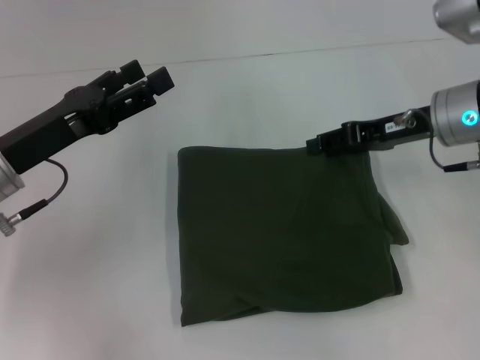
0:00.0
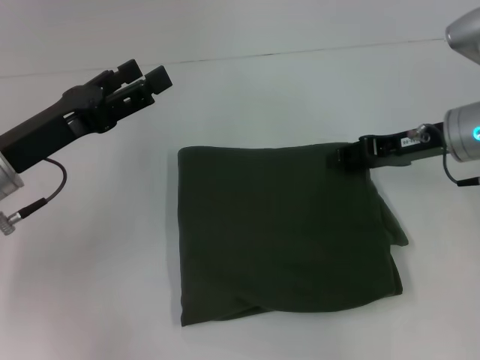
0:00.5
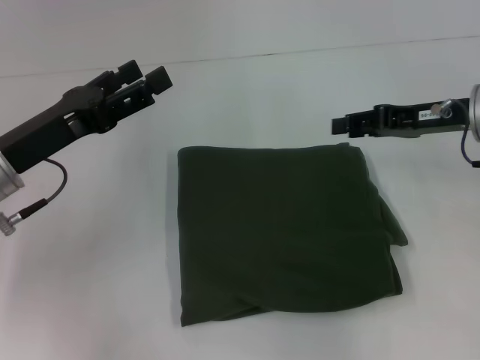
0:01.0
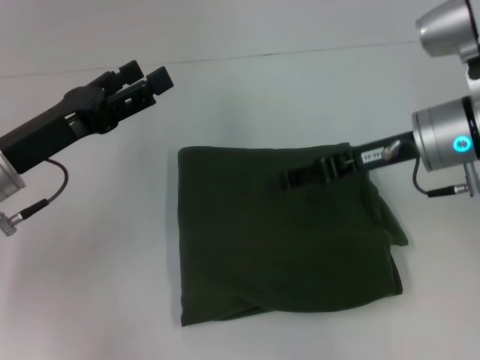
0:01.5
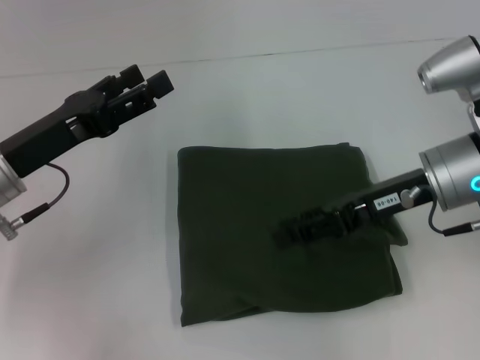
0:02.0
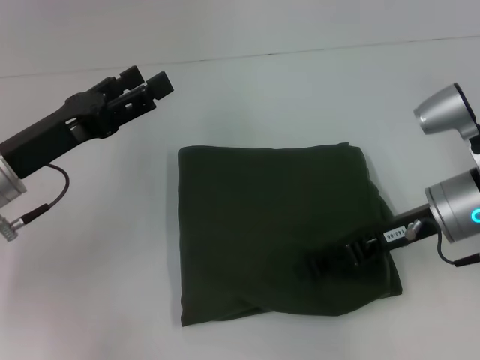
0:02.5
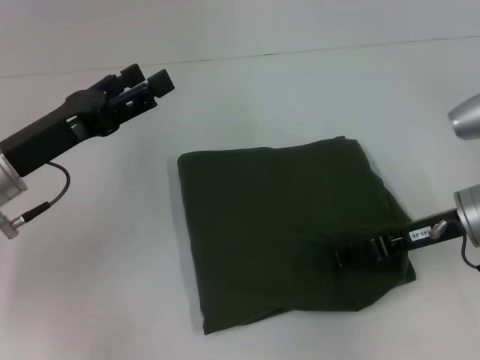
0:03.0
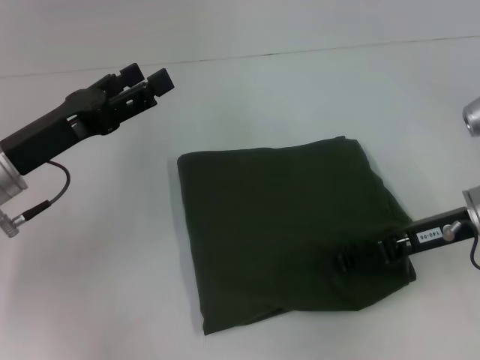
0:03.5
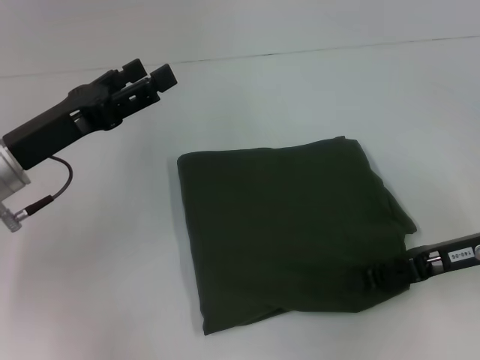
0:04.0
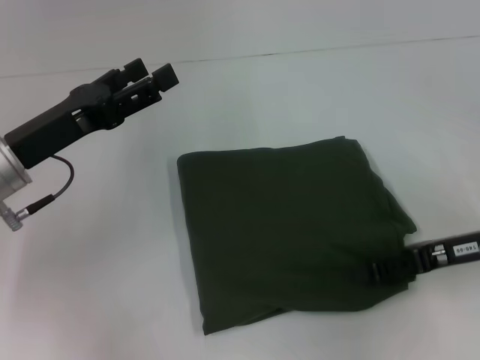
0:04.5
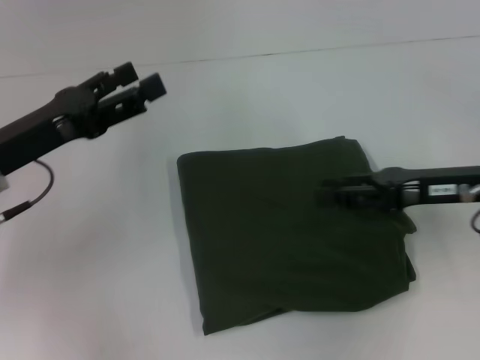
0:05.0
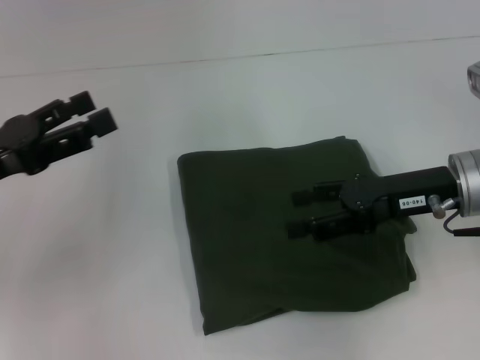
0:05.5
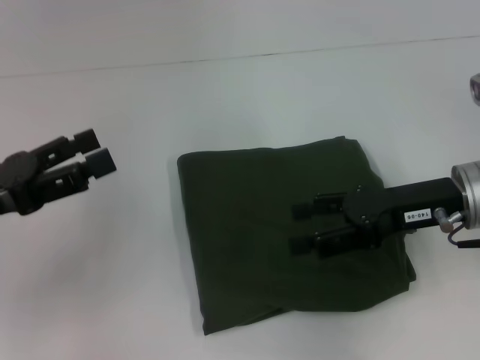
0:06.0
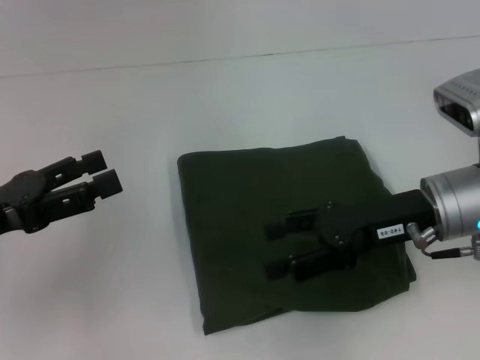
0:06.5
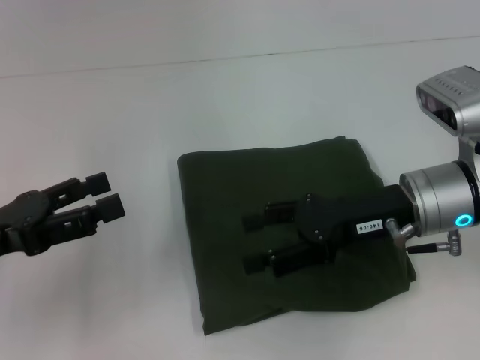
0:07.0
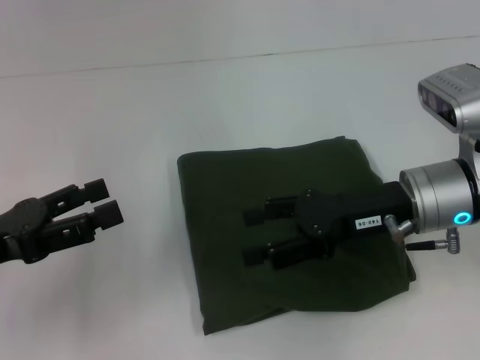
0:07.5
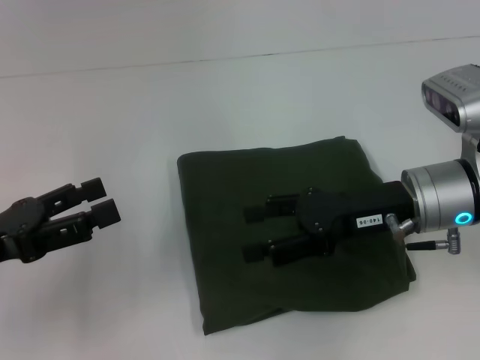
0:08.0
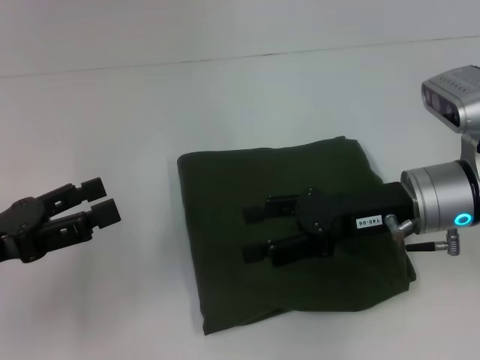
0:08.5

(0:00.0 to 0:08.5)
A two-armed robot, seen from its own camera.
0:00.0 - 0:02.0: The right gripper moves roughly 5 cm.
0:02.0 - 0:04.0: The right gripper is displaced to the right and backward by about 10 cm.
0:04.0 - 0:06.5: The right gripper moves to the left, some 5 cm, and opens; the left gripper travels to the left and backward by approximately 10 cm.
0:06.5 - 0:08.5: There are only small adjustments of the grippers.

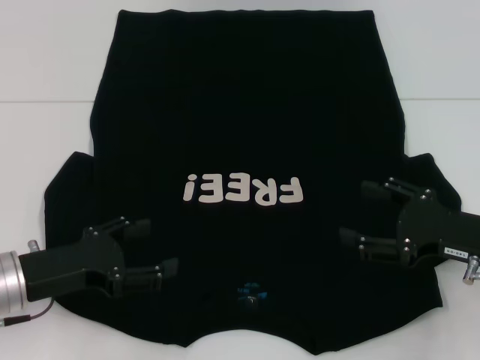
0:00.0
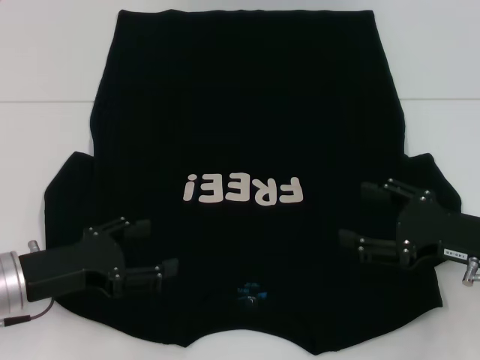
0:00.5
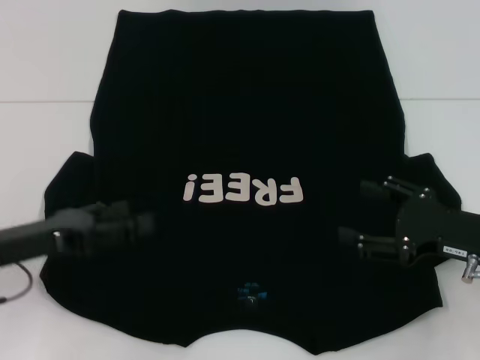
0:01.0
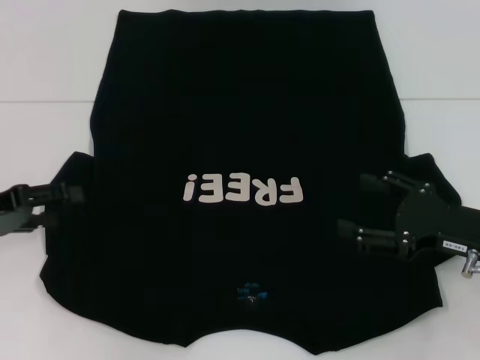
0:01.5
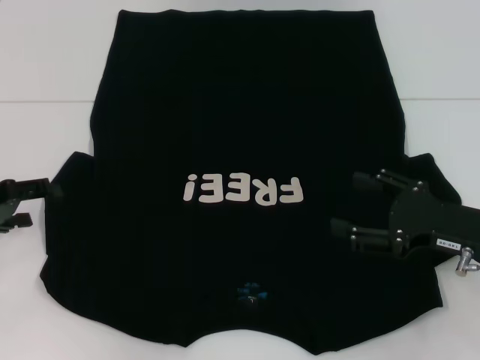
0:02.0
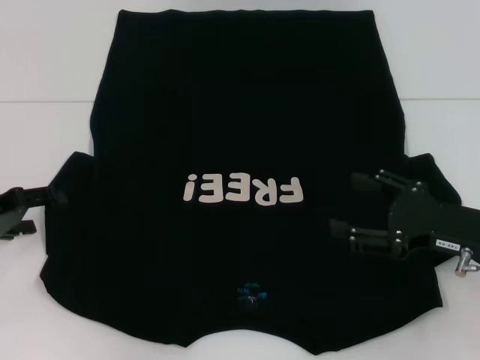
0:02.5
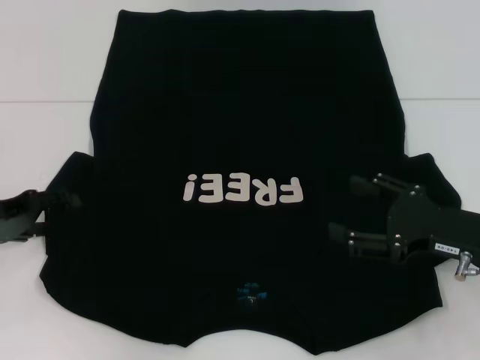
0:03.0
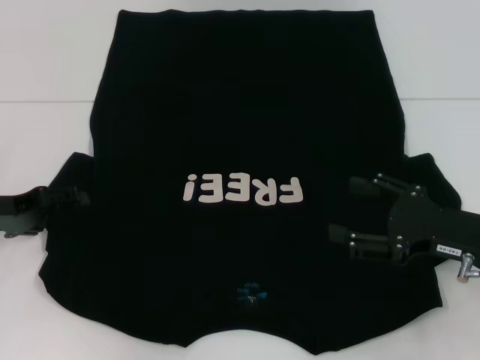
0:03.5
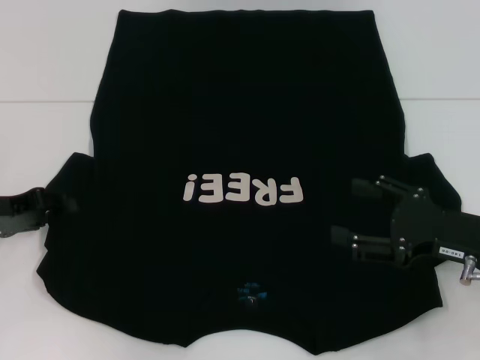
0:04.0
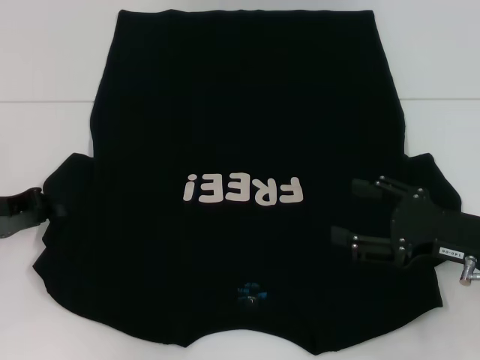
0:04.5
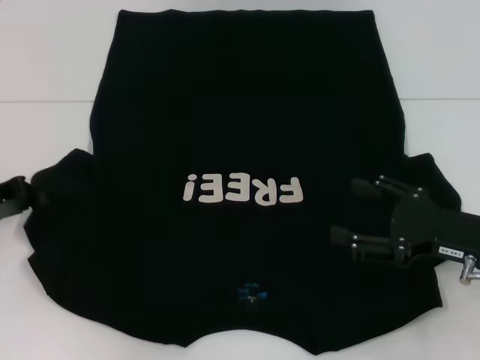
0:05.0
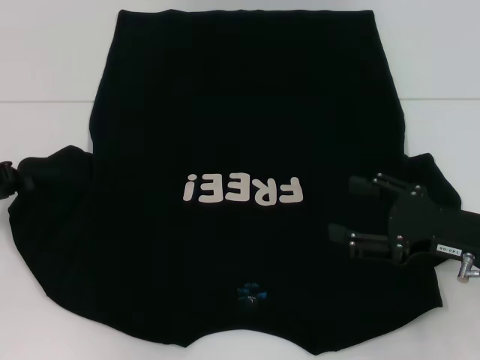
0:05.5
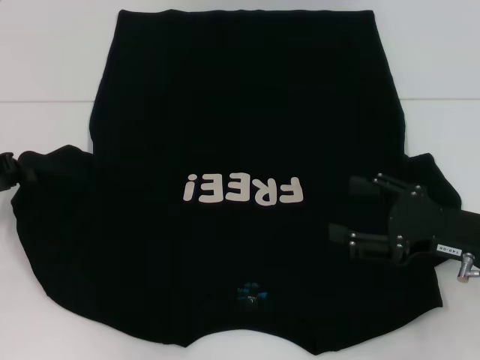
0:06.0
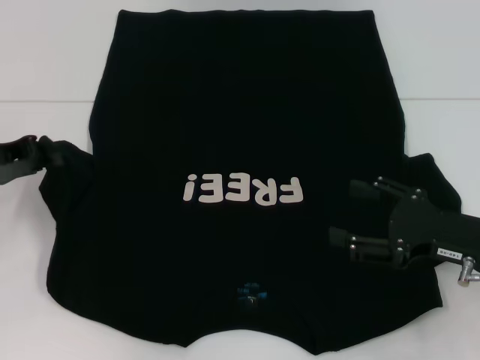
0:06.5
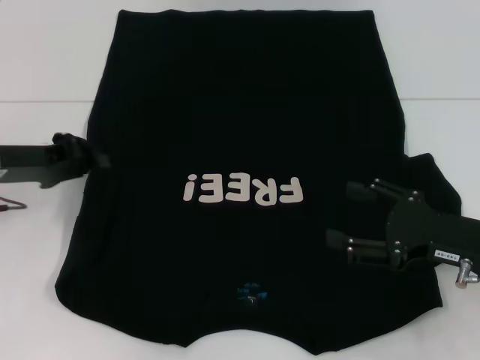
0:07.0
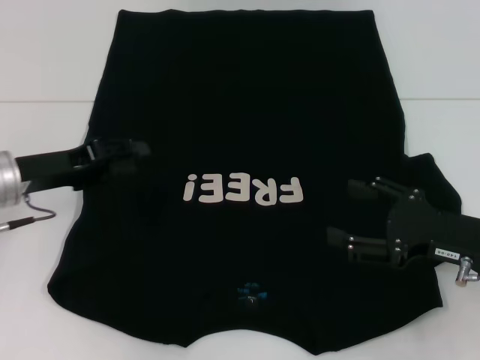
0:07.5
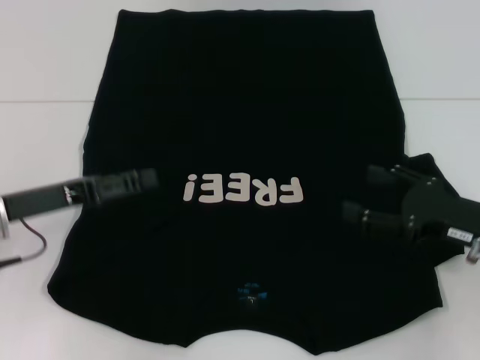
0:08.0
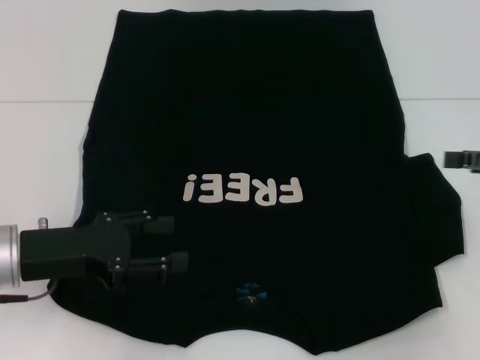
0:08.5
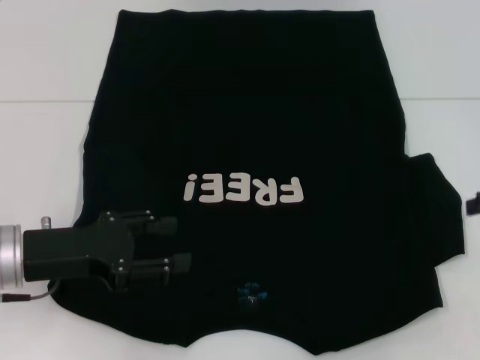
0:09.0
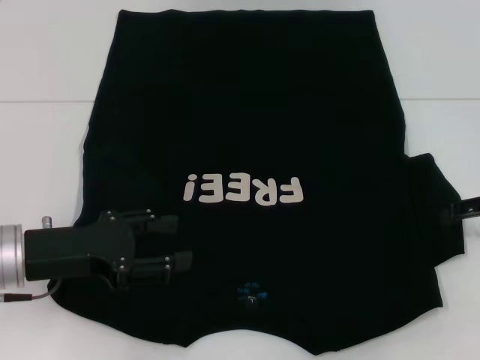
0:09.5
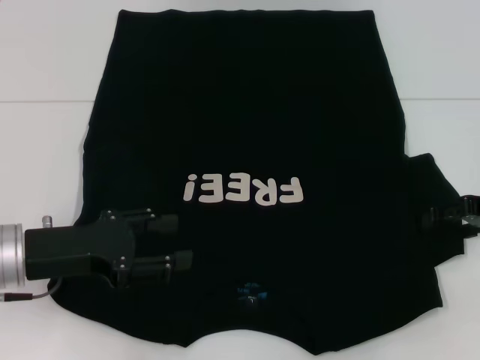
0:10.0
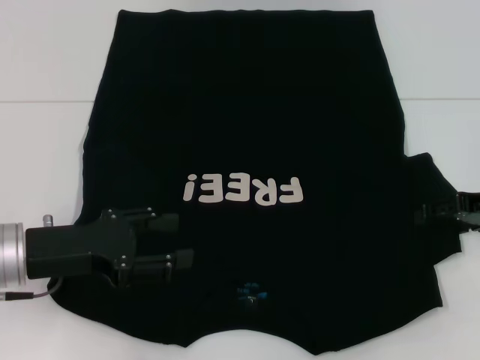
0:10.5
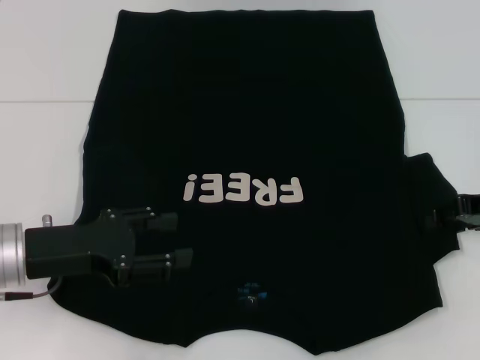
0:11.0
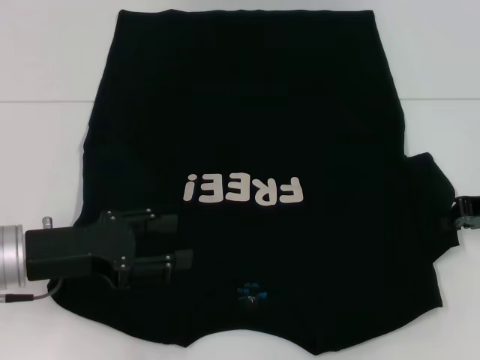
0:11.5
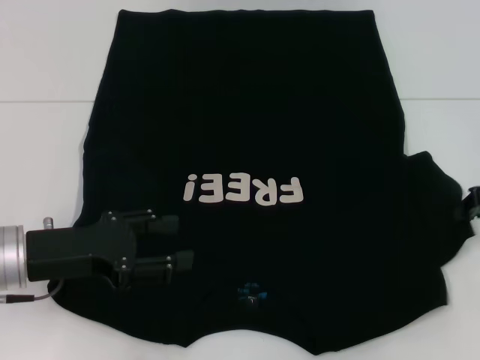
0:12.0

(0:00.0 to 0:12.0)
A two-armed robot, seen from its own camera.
Step, 0:00.0 - 0:08.5: Fold the bottom left sleeve with your left hand.
0:00.0 - 0:02.0: The left gripper heads to the left and forward, covering roughly 10 cm.
0:02.0 - 0:04.0: There are only small adjustments of the grippers.
0:04.0 - 0:06.0: The left gripper closes up.
0:06.0 - 0:08.0: The left gripper goes about 10 cm to the right, and opens its fingers.
0:08.0 - 0:10.0: The right gripper shifts approximately 5 cm forward.
0:10.0 - 0:12.0: The right gripper closes.

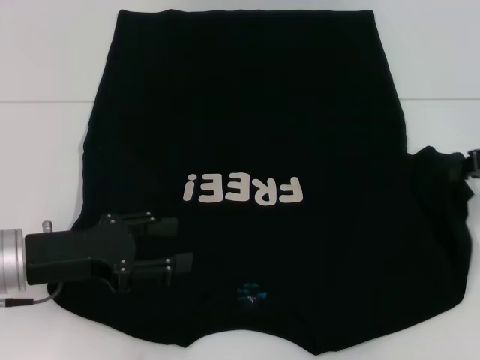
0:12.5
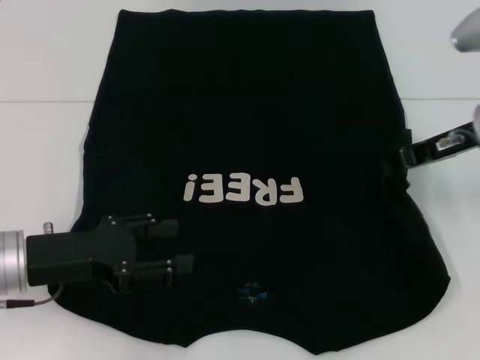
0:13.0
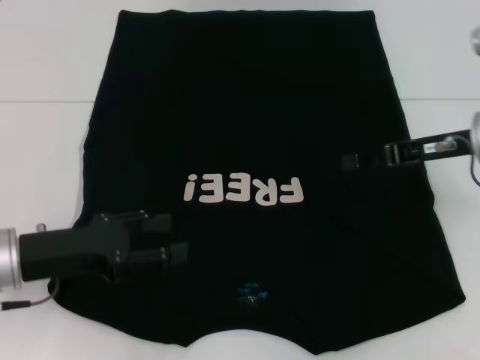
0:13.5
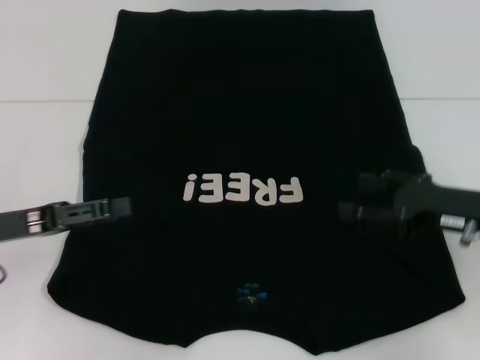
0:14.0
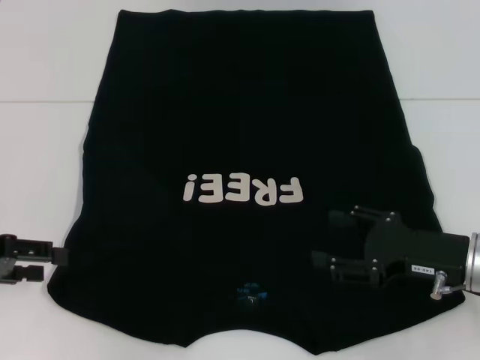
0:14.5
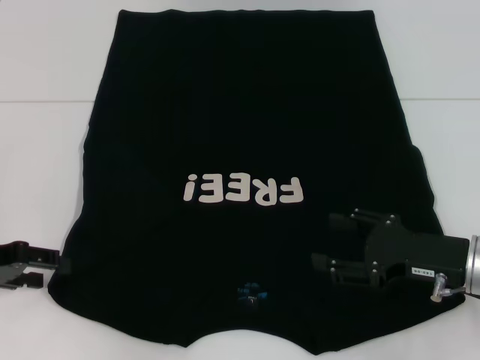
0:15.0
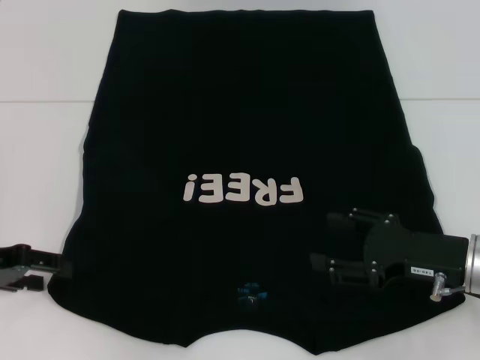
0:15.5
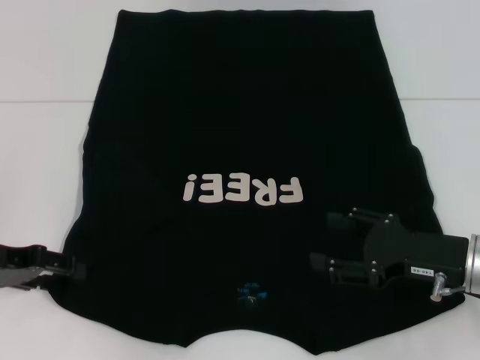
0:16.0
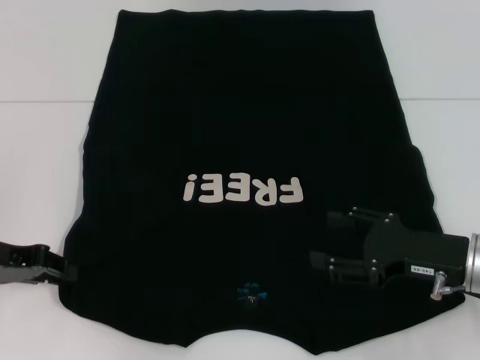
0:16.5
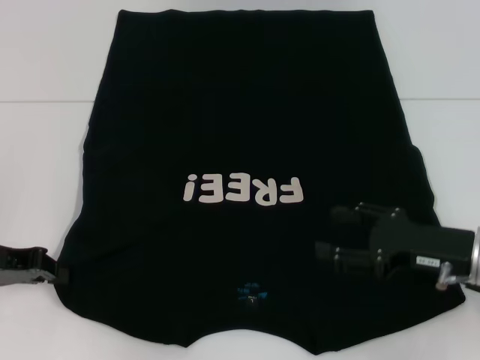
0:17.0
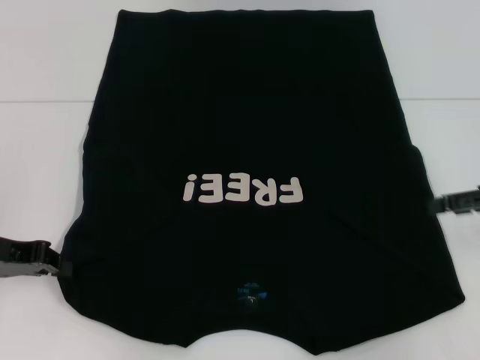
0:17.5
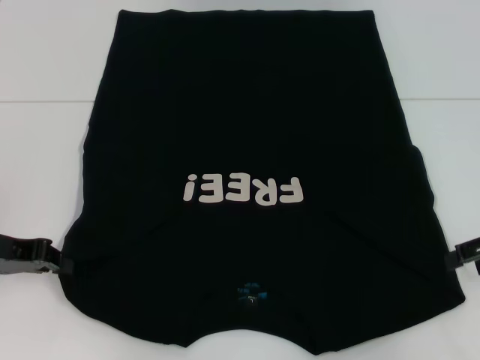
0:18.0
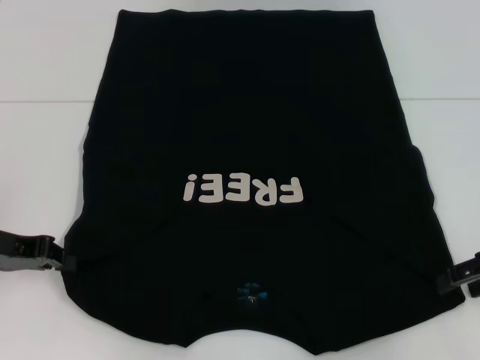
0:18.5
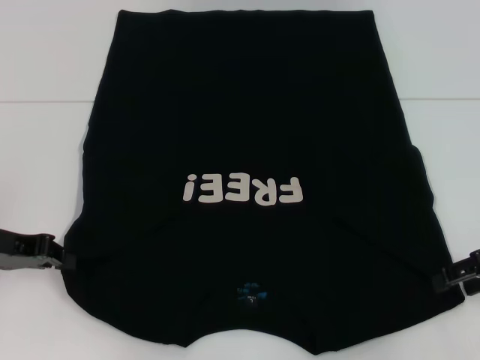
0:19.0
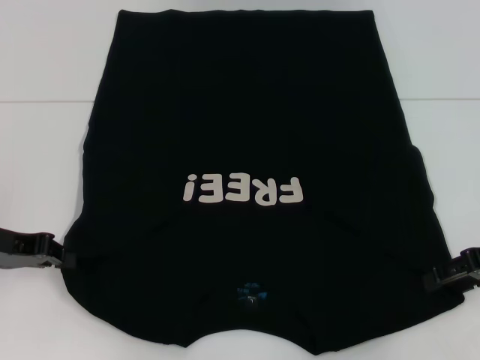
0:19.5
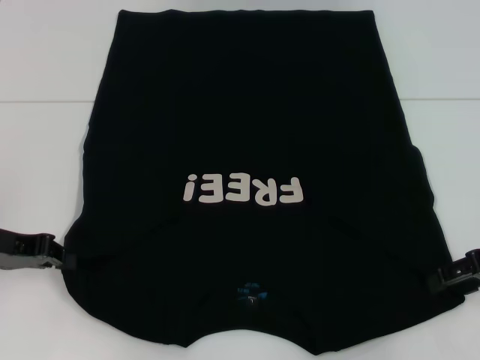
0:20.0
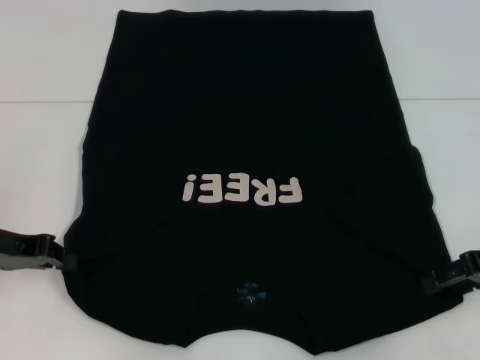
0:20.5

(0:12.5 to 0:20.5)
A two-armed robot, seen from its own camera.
0:12.5 - 0:14.5: The left gripper heads to the left, covering some 10 cm; the right gripper travels downward, backward and to the left by about 15 cm, and opens.
0:14.5 - 0:16.5: The grippers make only small movements.
0:16.5 - 0:18.5: The left gripper closes its fingers. Meanwhile the right gripper moves to the right and upward, roughly 10 cm.
0:18.5 - 0:20.5: The grippers make only small movements.
